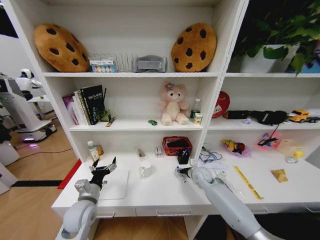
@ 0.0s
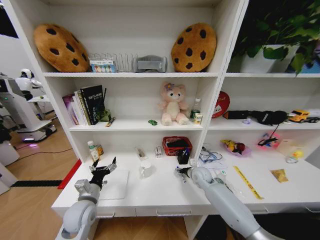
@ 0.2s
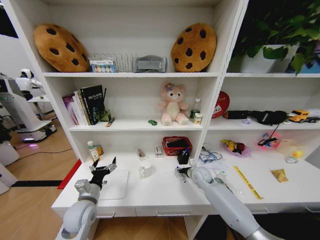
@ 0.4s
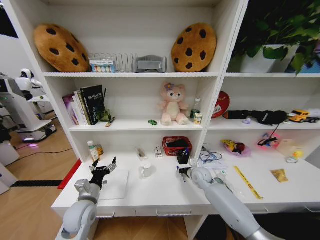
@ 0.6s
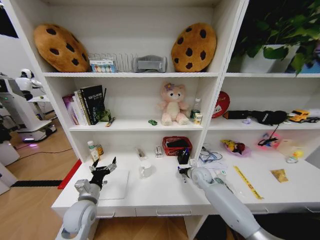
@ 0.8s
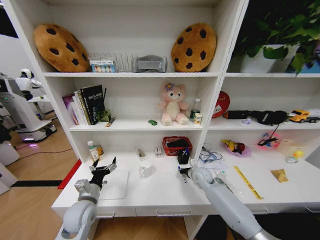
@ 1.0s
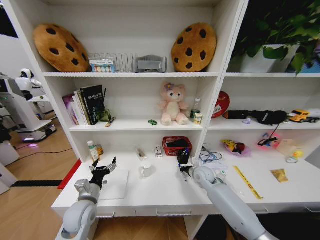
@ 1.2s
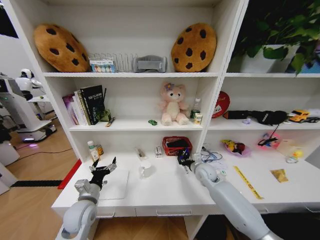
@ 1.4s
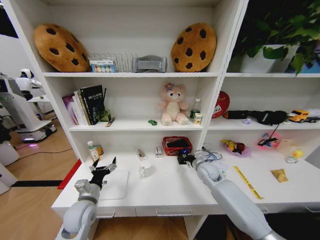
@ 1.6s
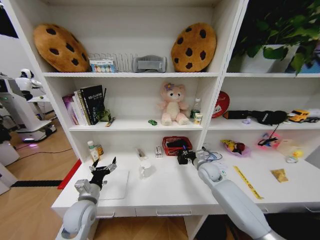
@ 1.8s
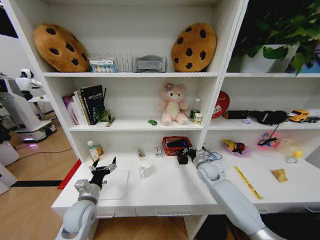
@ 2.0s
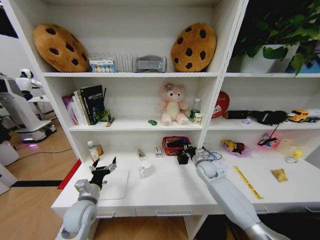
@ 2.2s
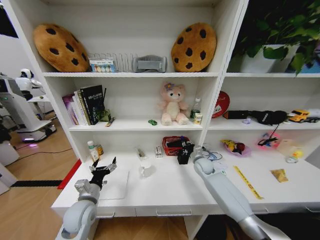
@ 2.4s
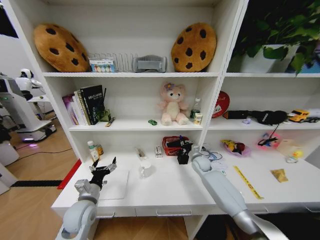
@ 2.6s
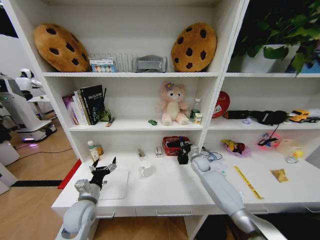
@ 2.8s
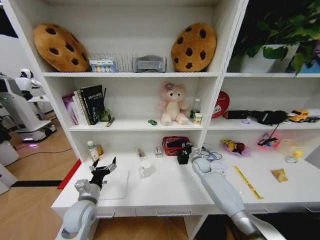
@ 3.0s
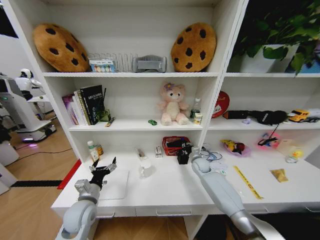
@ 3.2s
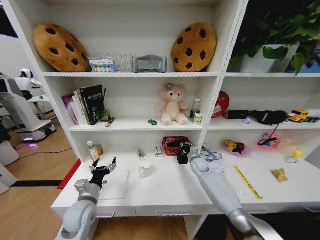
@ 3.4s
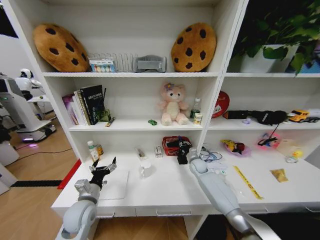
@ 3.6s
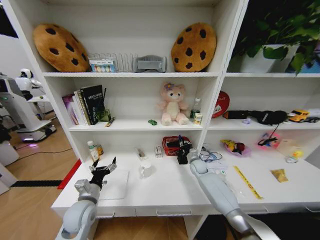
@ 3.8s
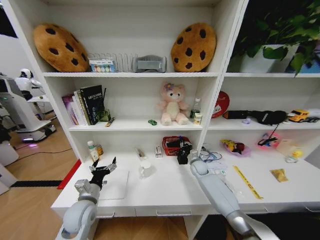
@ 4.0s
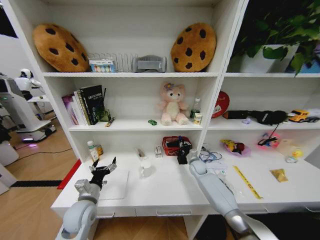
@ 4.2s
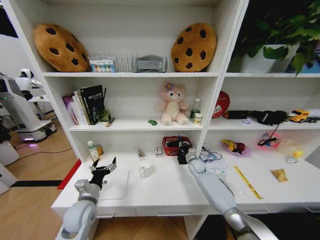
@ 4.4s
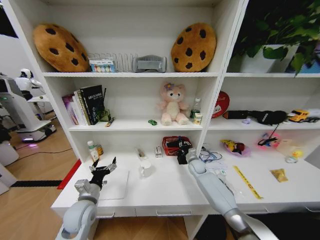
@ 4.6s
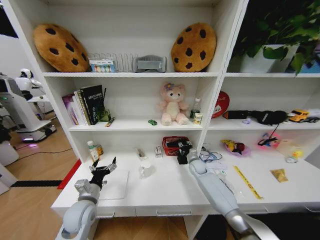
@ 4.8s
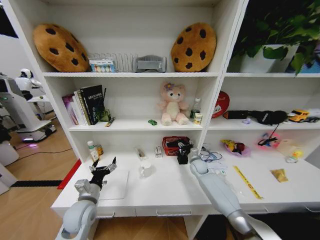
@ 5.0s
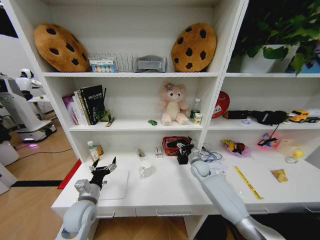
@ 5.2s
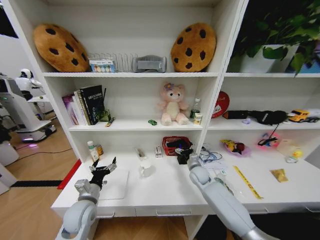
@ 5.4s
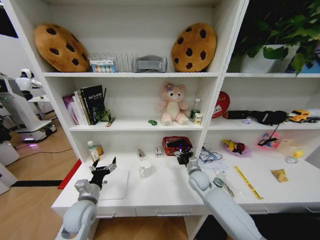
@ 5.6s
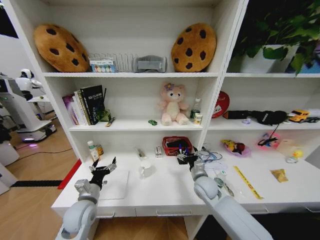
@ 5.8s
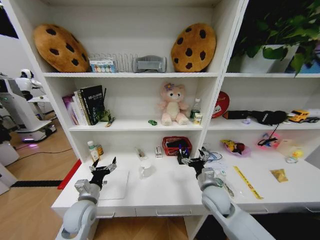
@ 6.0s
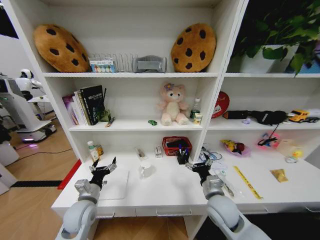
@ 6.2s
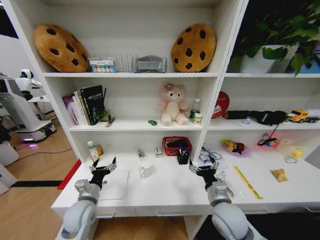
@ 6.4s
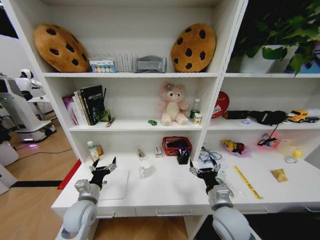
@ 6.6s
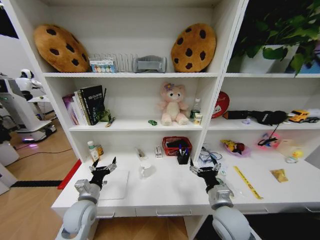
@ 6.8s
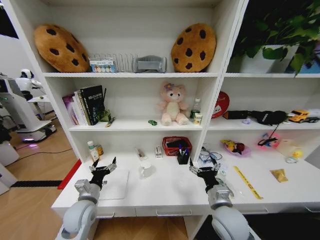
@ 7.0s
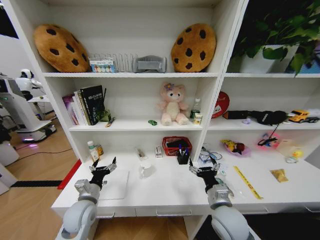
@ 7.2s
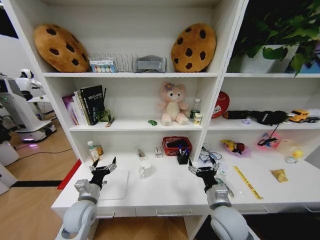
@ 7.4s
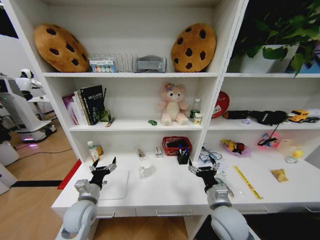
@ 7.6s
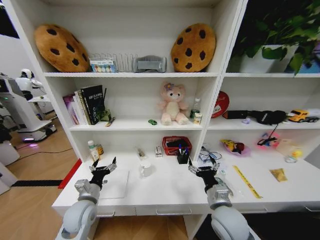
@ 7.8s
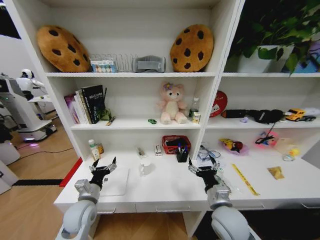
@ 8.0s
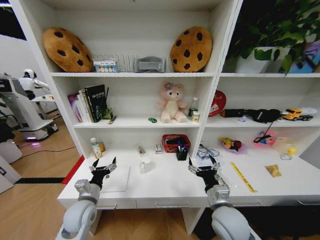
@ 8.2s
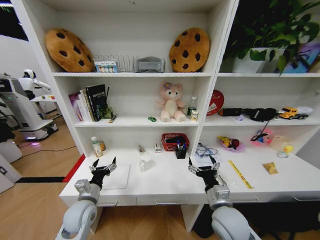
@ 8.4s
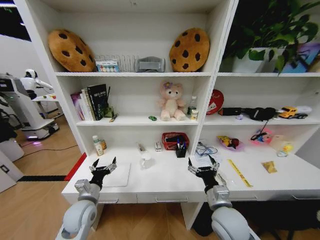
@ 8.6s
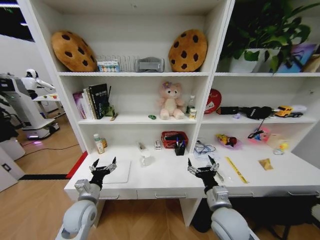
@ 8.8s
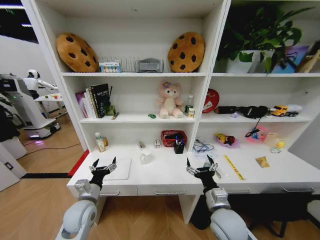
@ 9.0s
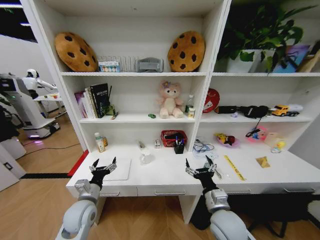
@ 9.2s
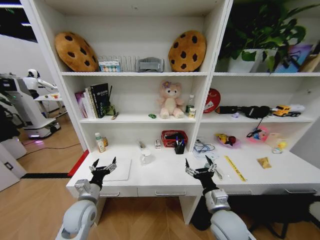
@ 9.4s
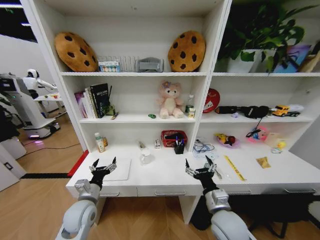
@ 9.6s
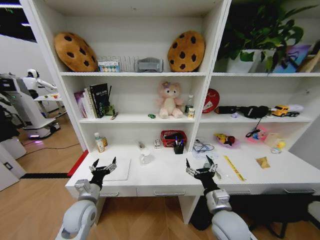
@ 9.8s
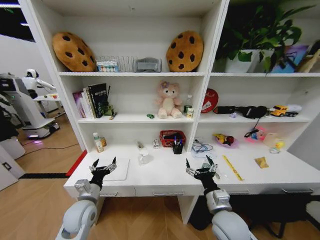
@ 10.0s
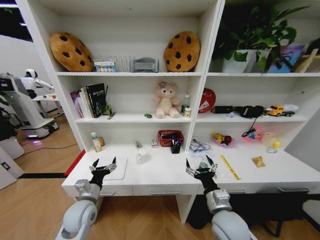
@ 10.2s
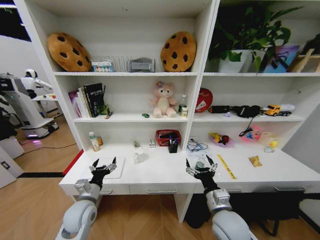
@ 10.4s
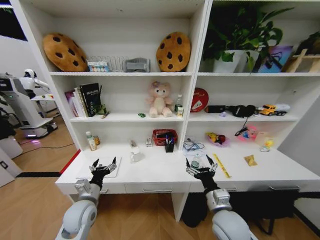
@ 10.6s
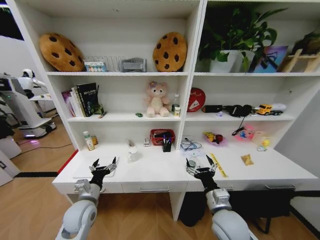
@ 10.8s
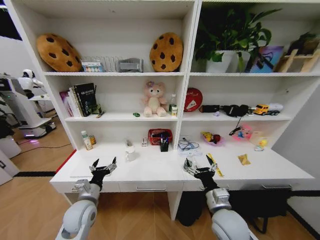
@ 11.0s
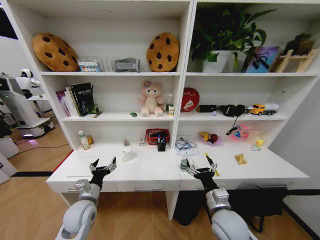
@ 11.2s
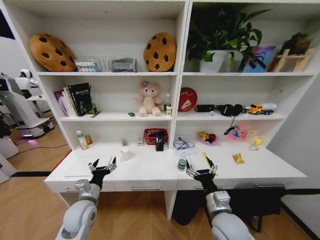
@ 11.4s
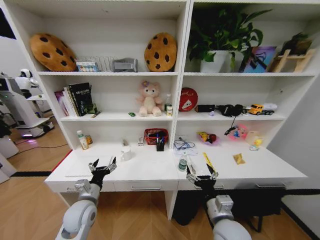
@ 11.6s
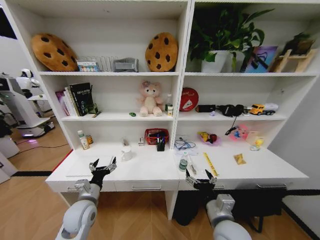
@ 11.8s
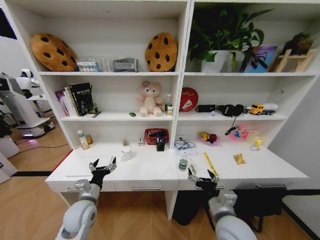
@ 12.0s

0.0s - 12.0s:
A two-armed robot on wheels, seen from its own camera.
Task of the whole recording: Organize the objects on the table.
0.0s - 1.6s: The right gripper shifts about 5 cm upward, and closes.
1.6s - 3.0s: The right gripper heads forward and downward, covering approximately 10 cm.
3.0s - 4.4s: There are only small adjustments of the grippers.
4.4s - 6.0s: The right gripper shifts some 25 cm backward and upward, and opens its fingers.
6.0s - 7.6s: The right gripper is displaced backward by roughly 10 cm.

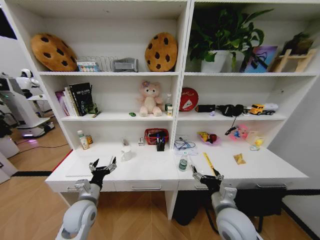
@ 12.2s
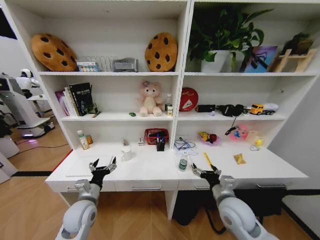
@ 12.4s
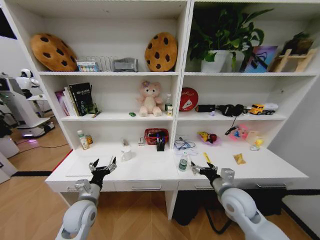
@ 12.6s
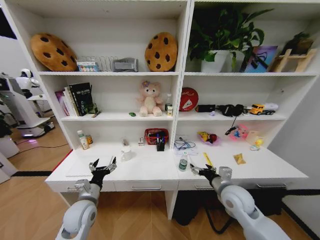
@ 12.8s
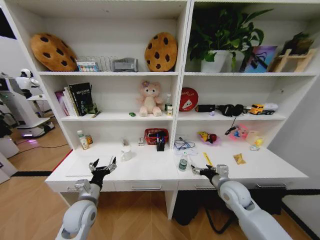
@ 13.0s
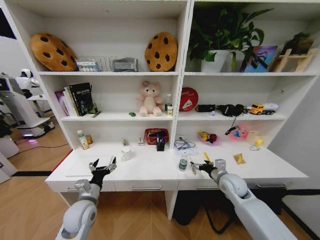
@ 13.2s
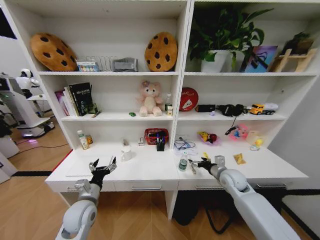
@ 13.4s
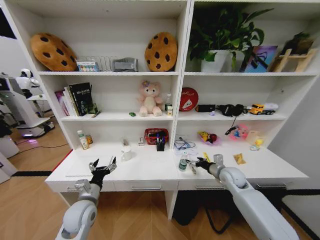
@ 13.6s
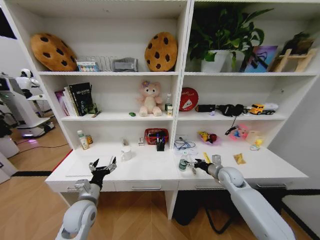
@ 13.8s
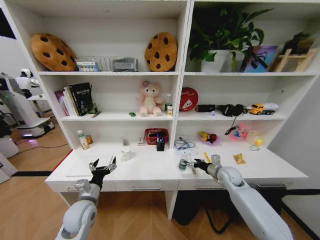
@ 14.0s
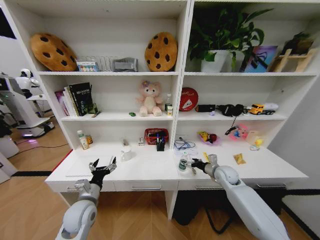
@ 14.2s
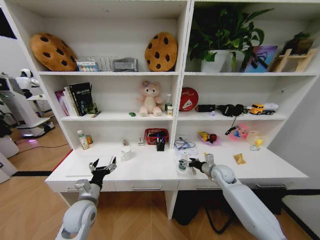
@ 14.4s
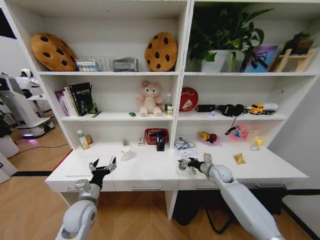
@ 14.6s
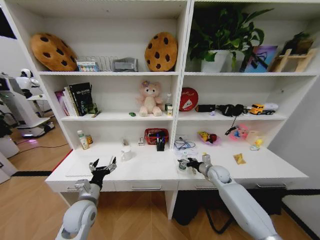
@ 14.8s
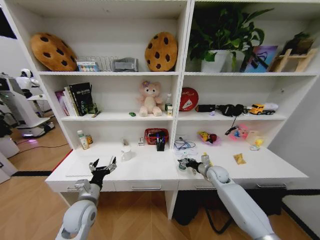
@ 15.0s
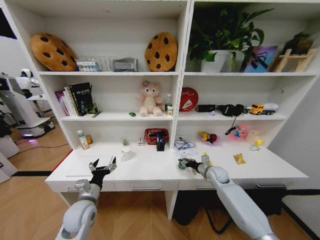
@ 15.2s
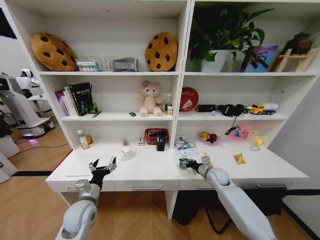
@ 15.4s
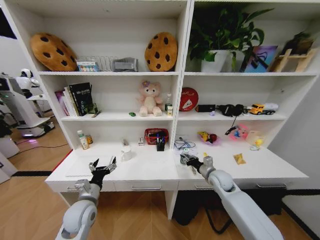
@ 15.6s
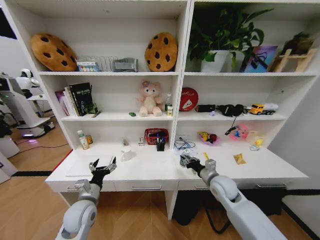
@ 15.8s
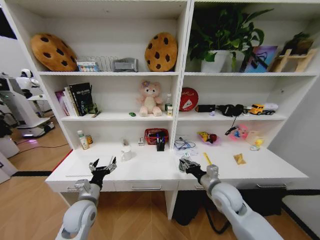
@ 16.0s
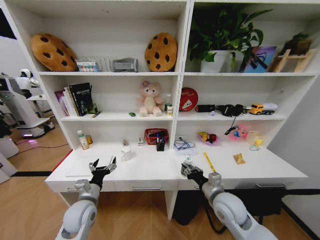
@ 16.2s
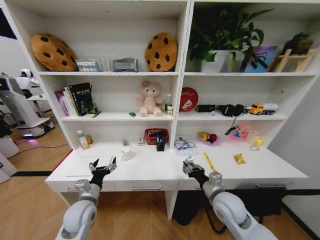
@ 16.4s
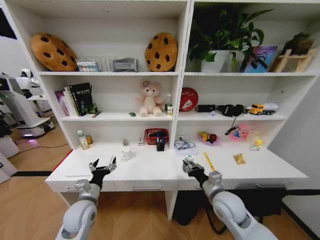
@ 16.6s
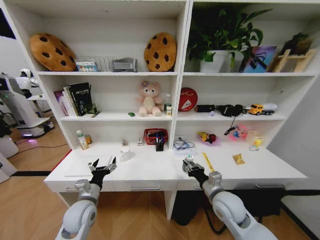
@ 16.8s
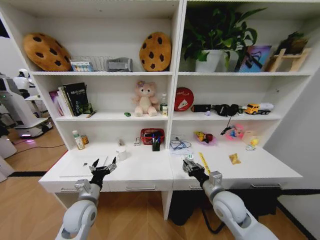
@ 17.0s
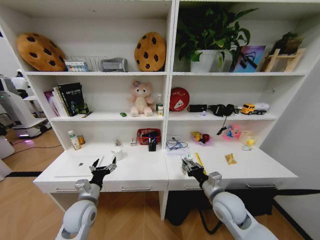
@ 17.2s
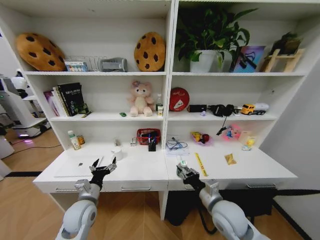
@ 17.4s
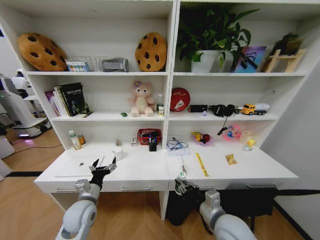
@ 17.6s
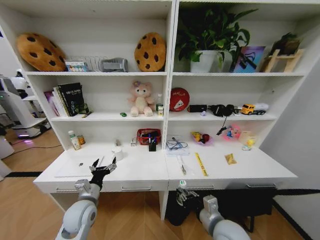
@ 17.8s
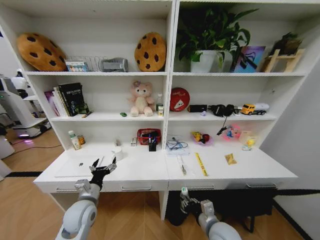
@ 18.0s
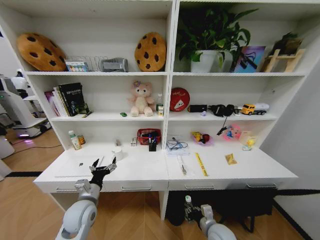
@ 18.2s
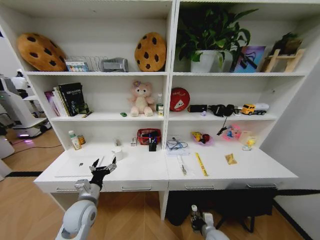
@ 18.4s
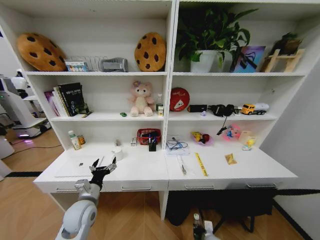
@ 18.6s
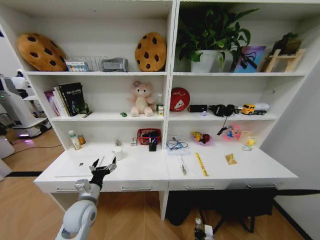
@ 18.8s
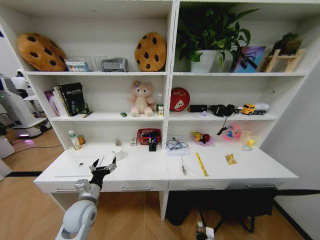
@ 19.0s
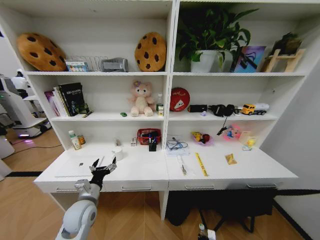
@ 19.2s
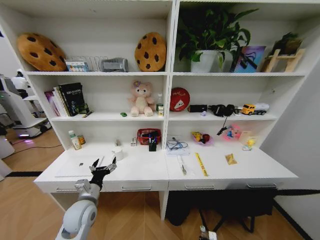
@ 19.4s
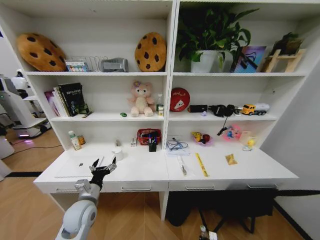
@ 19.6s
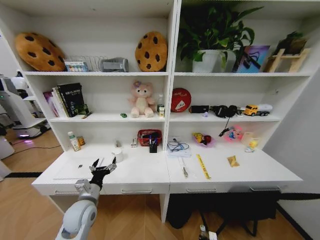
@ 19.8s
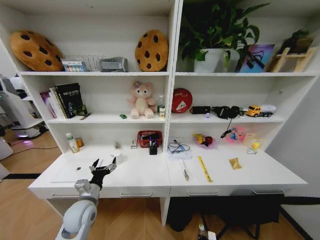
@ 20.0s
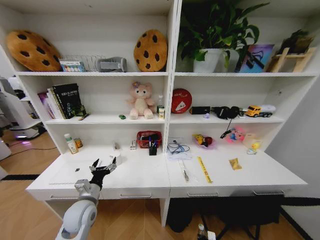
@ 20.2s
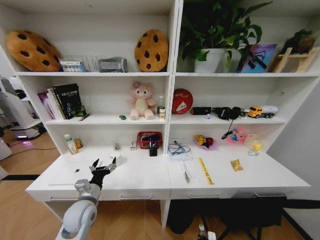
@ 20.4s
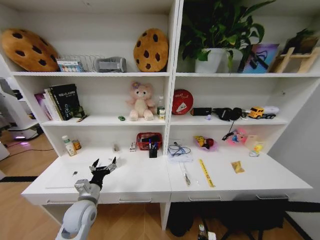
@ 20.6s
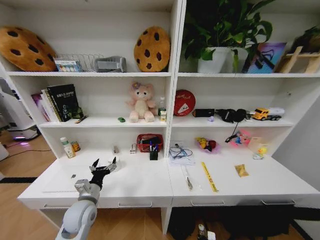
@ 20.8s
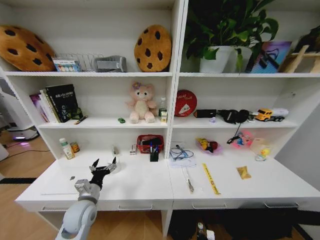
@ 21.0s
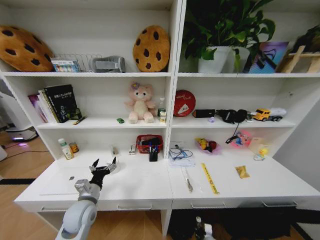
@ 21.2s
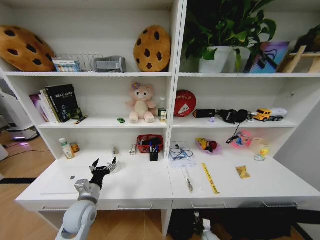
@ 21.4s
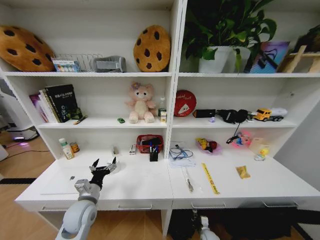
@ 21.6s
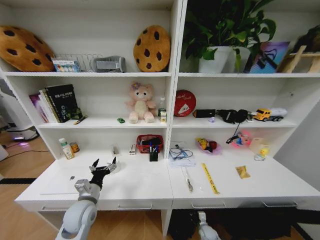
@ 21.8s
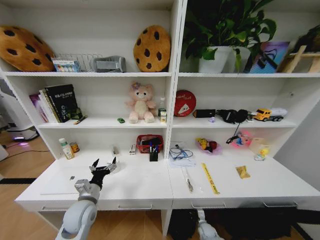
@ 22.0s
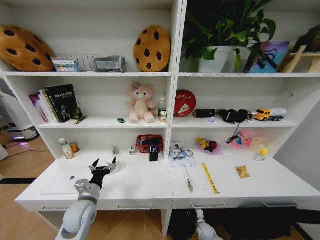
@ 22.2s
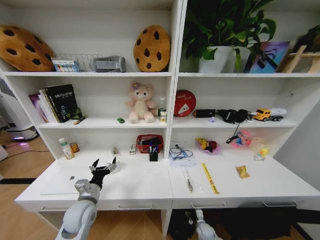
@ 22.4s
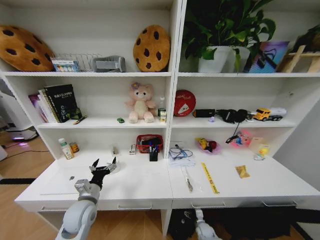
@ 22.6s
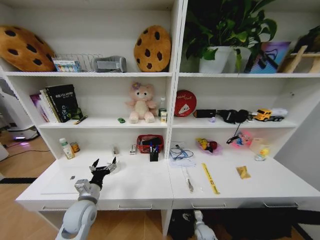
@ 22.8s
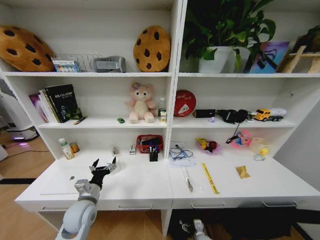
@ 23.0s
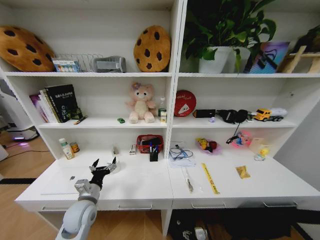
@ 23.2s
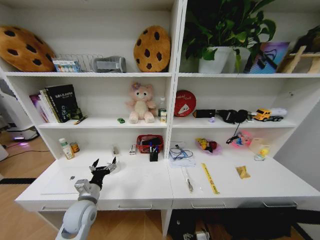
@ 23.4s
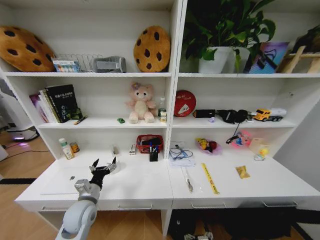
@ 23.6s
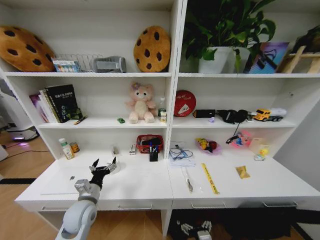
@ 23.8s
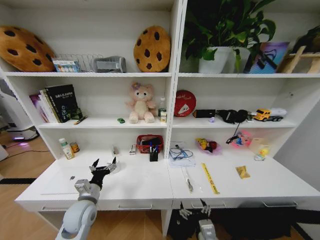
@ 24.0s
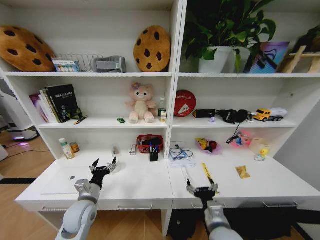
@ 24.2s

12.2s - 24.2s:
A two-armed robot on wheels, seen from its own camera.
Task of the whole recording: Organize the objects on the table.
12.2s - 13.8s: The right gripper is displaced forward and to the right by roughly 25 cm.
13.8s - 15.2s: The right gripper moves roughly 5 cm, and closes.
15.2s - 16.6s: The right gripper goes roughly 20 cm backward, upward and to the left.
16.6s - 18.2s: The right gripper travels downward and backward by roughly 15 cm.
18.2s - 19.8s: The right gripper is displaced downward by some 25 cm.
22.6s - 24.2s: The right gripper goes about 35 cm upward.
